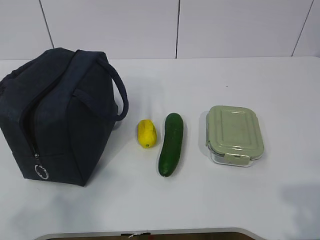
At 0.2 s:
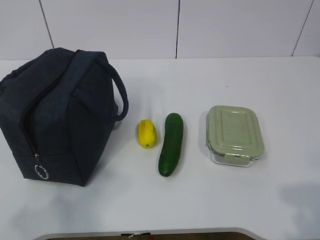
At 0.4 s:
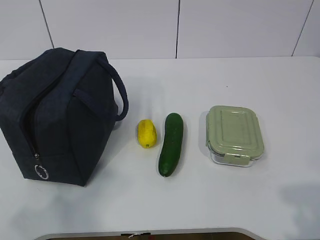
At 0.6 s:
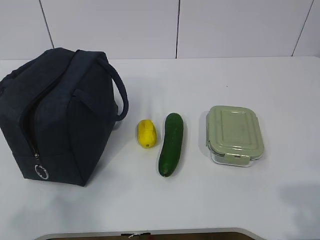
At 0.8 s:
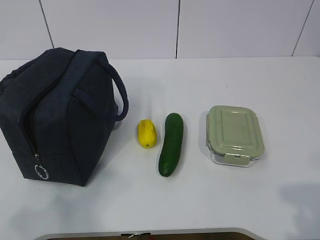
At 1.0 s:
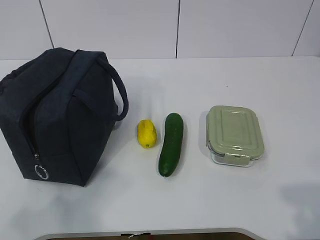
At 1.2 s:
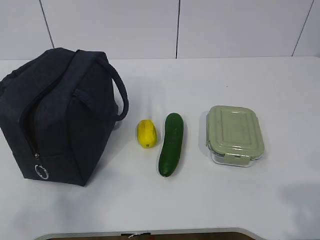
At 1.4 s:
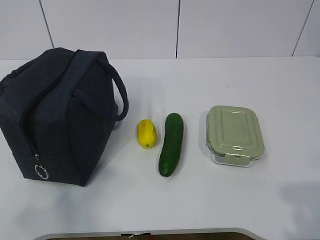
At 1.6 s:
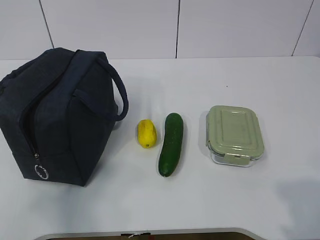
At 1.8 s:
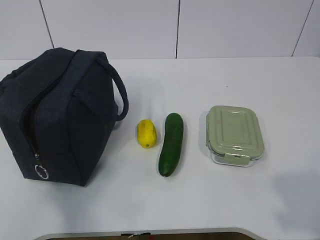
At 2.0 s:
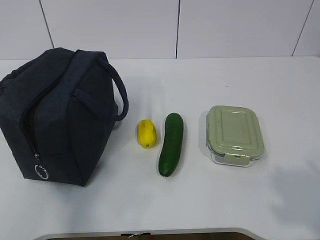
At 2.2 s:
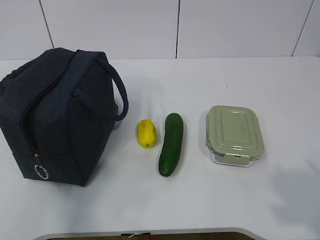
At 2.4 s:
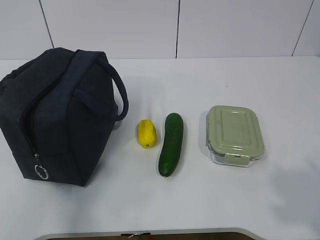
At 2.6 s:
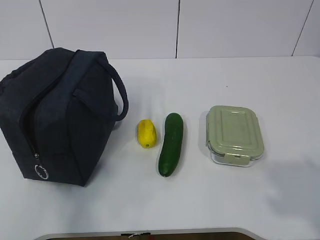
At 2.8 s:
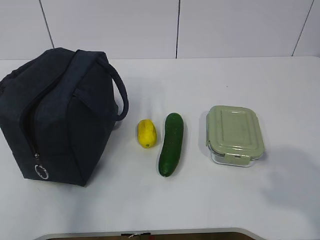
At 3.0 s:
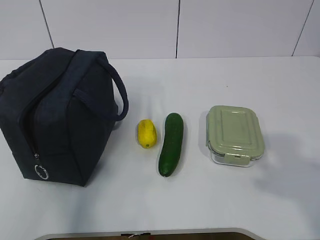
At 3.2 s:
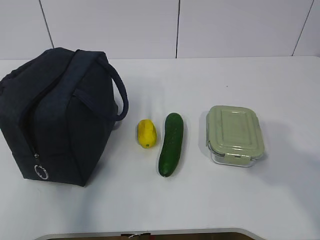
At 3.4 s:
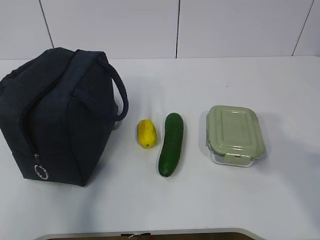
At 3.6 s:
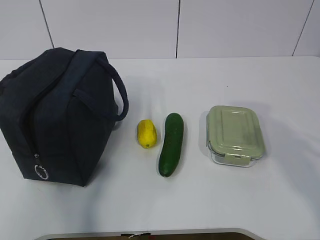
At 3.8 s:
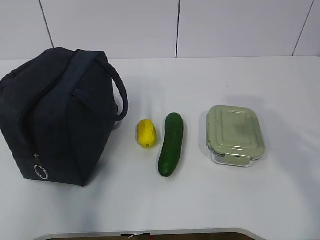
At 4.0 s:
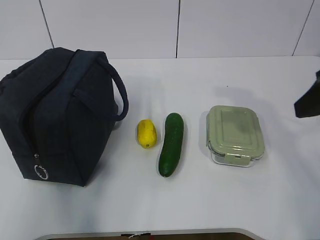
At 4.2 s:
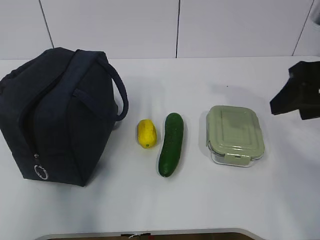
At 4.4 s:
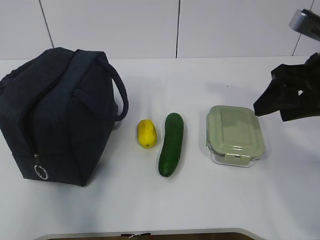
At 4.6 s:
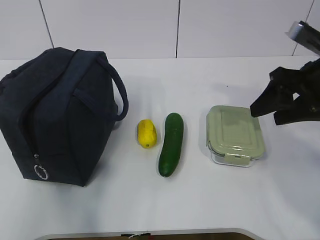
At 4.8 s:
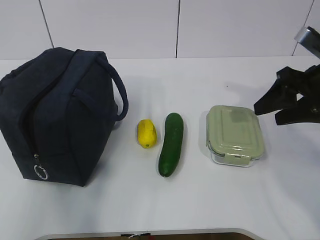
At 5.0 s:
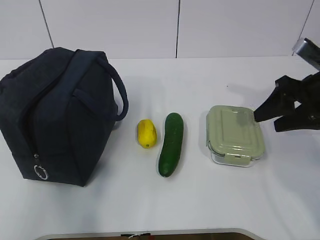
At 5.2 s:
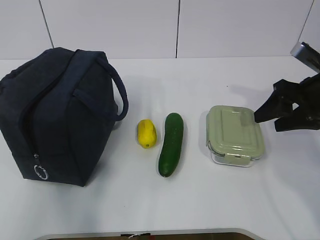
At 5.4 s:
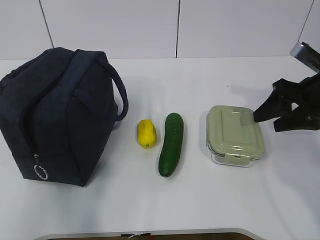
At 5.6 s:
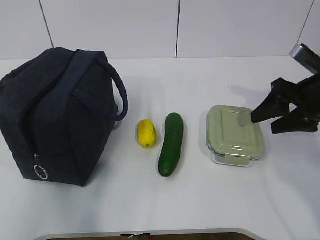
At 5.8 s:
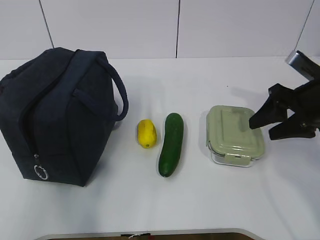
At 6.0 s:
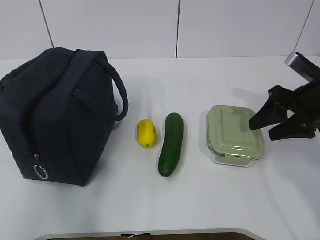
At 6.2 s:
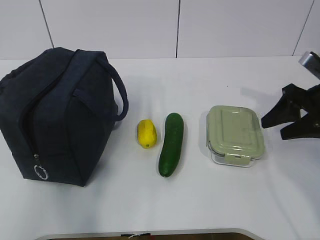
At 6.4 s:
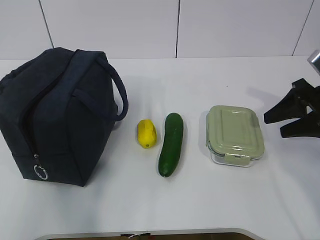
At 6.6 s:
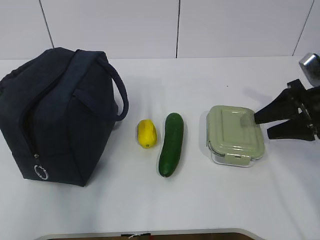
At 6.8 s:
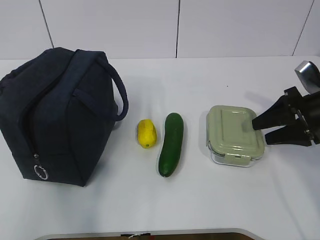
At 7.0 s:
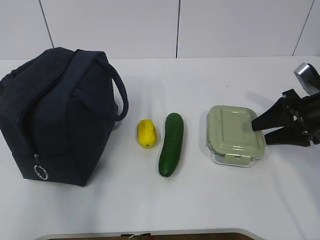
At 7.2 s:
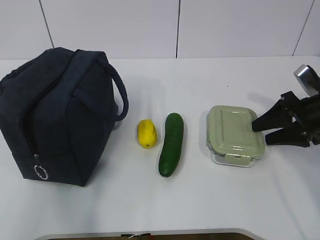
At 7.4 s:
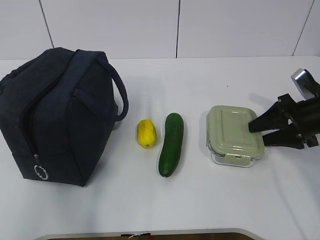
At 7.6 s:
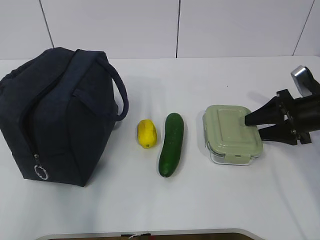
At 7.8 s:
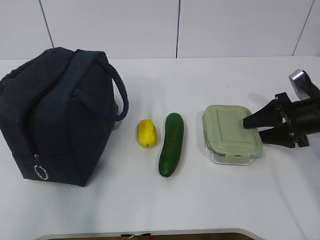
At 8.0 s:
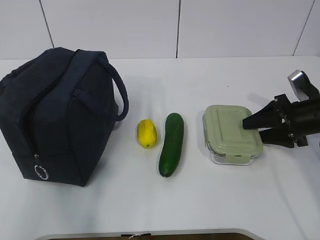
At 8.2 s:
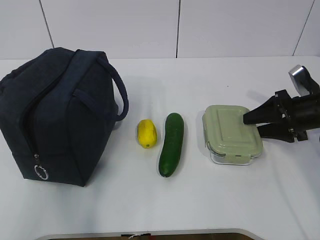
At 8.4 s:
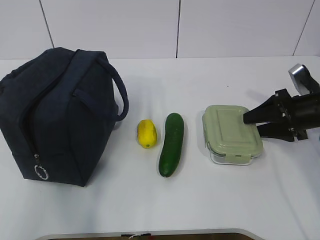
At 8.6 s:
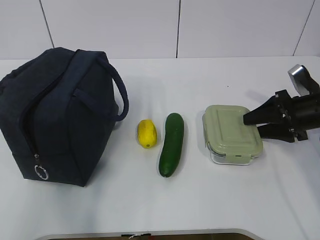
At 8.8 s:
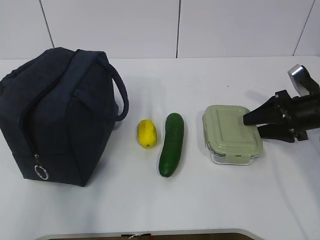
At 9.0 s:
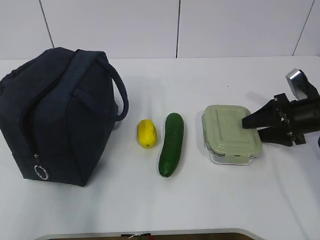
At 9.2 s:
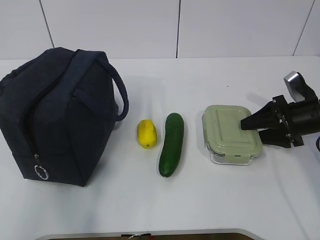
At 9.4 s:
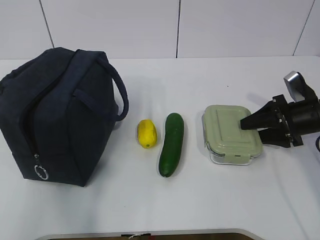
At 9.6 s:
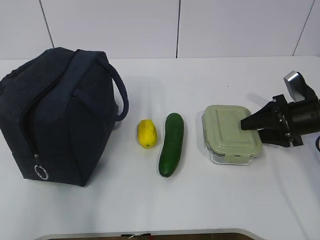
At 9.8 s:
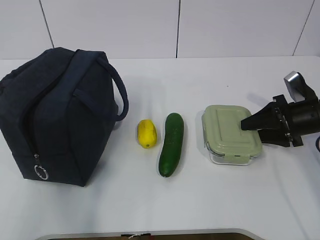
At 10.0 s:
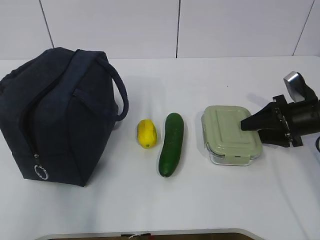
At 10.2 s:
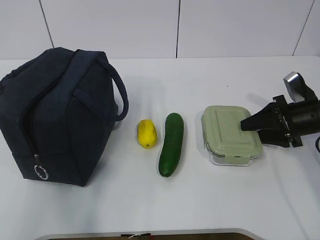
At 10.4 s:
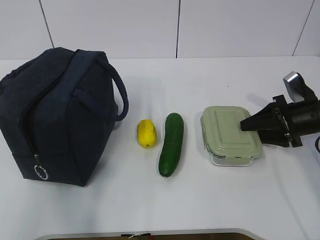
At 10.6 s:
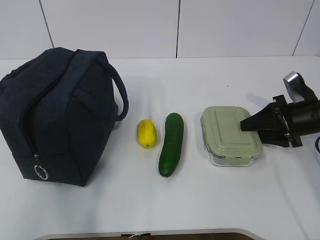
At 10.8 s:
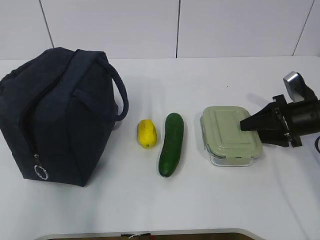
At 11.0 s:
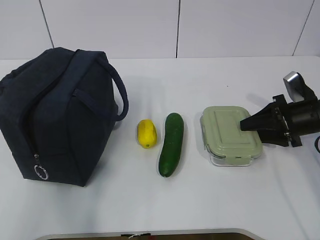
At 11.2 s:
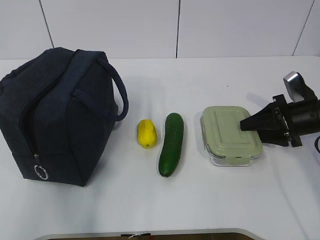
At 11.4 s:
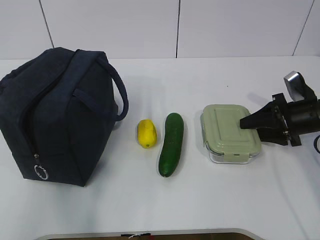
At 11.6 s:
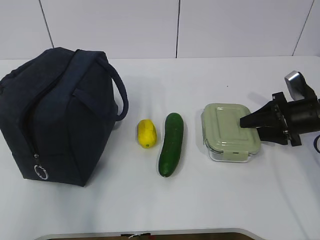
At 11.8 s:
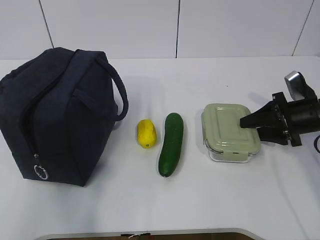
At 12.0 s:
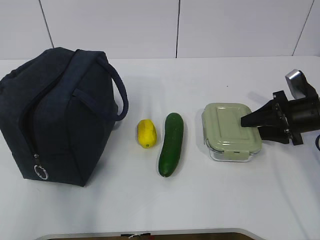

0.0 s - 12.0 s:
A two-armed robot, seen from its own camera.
Step, 0.0 s - 9.8 s: Grab the lunch box with your right hand.
1.6 s - 3.0 s: The right gripper is displaced upward by some 5 cm.
3.0 s - 4.4 s: The right gripper heads forward, covering some 25 cm.
4.4 s - 6.0 s: The right gripper moves downward and forward, approximately 10 cm.
6.0 s - 7.6 s: The right gripper goes roughly 5 cm downward.
7.6 s - 9.0 s: Neither gripper changes place.
9.0 s - 12.0 s: Both grippers stay about where they are.

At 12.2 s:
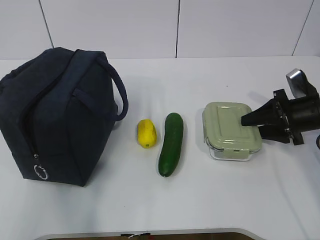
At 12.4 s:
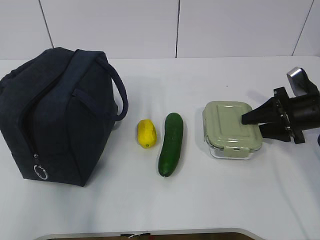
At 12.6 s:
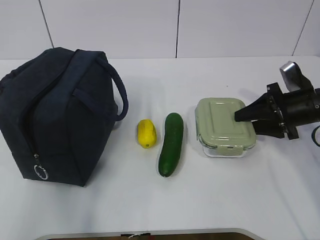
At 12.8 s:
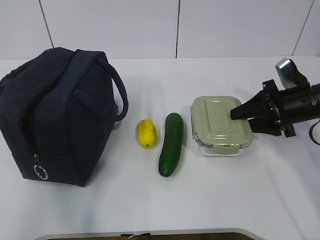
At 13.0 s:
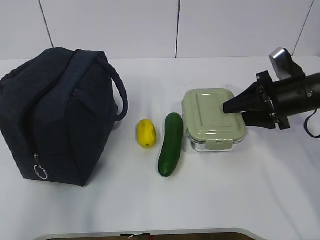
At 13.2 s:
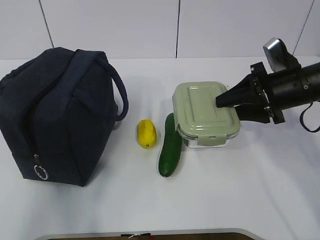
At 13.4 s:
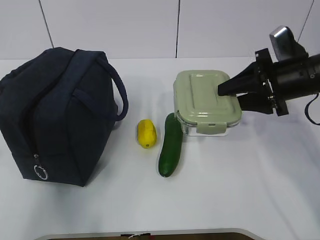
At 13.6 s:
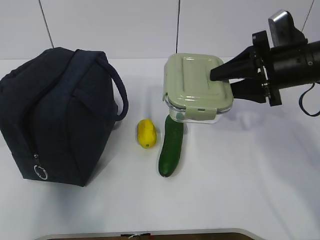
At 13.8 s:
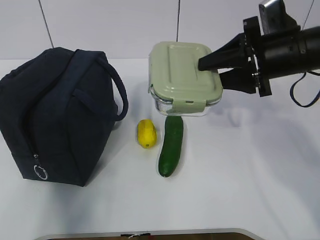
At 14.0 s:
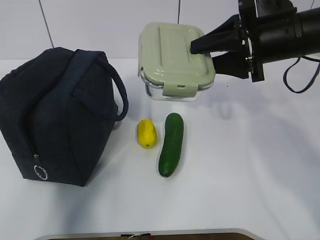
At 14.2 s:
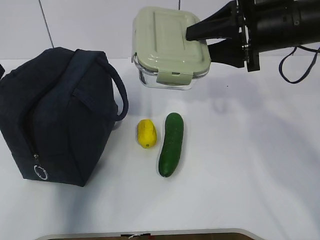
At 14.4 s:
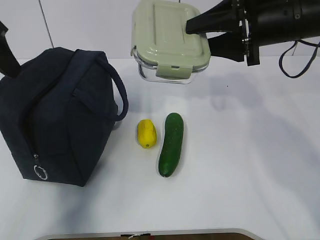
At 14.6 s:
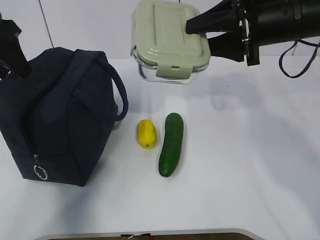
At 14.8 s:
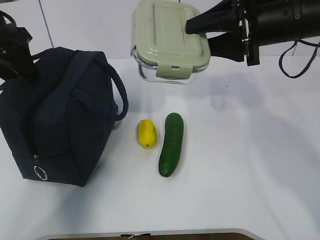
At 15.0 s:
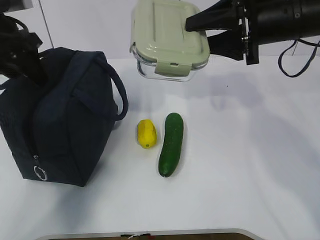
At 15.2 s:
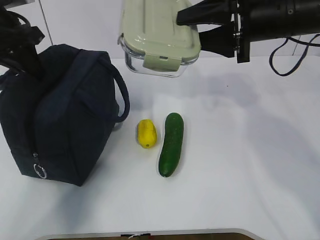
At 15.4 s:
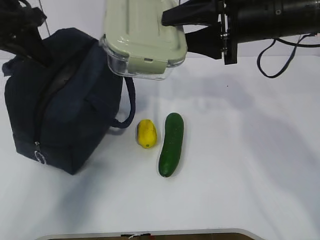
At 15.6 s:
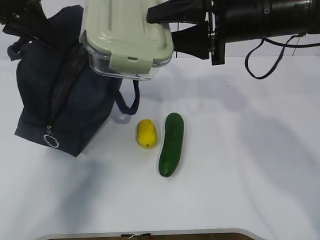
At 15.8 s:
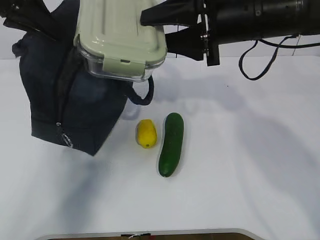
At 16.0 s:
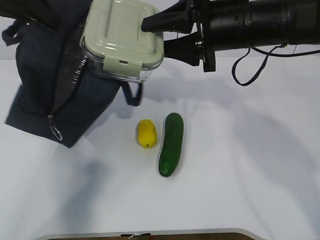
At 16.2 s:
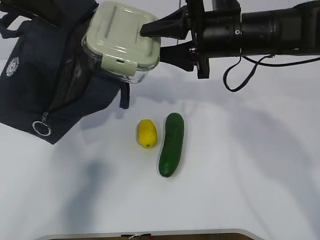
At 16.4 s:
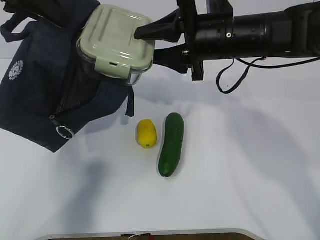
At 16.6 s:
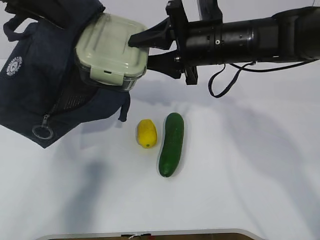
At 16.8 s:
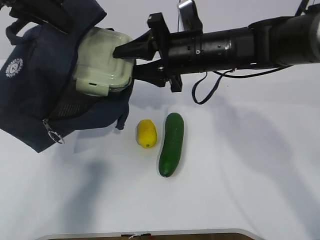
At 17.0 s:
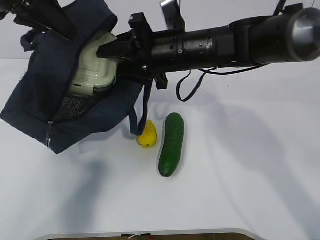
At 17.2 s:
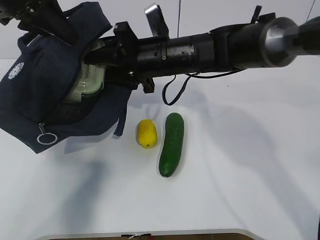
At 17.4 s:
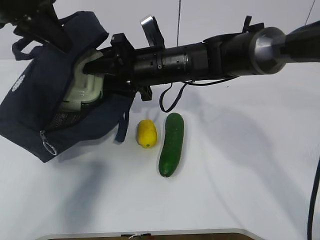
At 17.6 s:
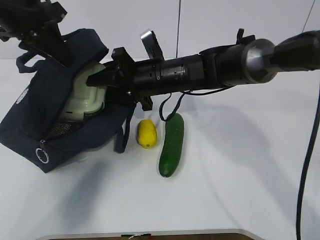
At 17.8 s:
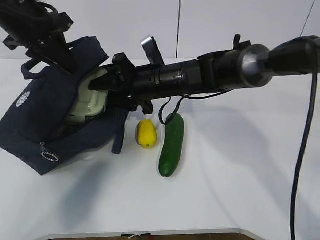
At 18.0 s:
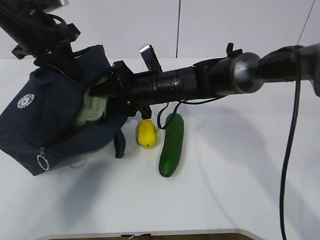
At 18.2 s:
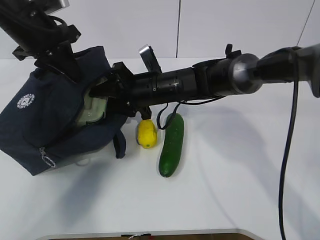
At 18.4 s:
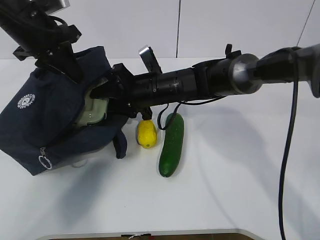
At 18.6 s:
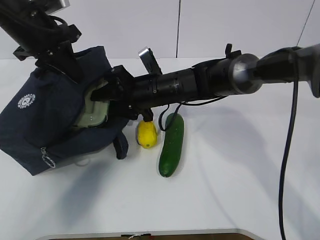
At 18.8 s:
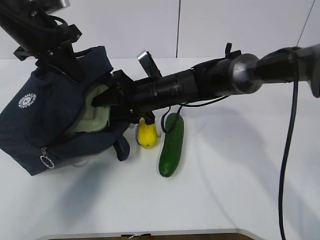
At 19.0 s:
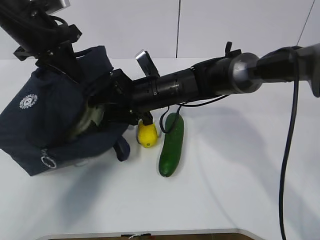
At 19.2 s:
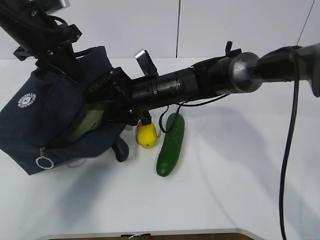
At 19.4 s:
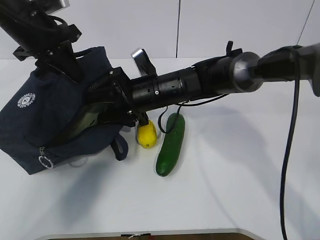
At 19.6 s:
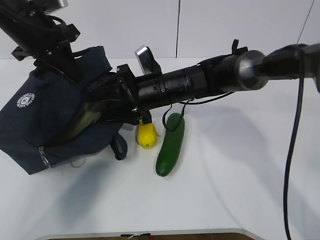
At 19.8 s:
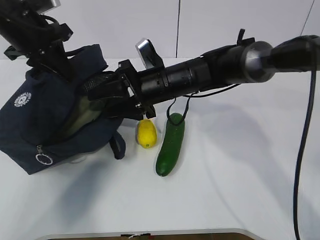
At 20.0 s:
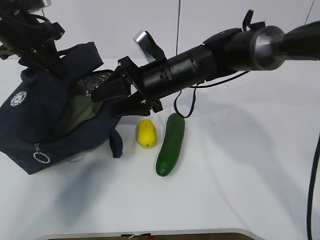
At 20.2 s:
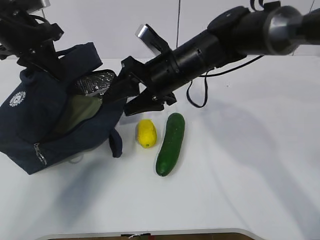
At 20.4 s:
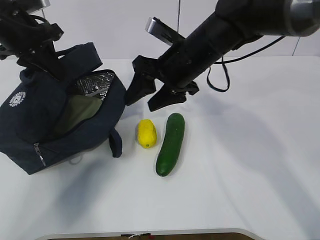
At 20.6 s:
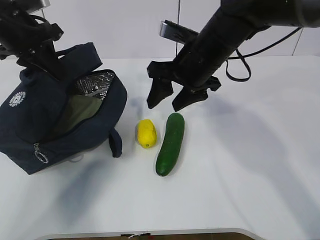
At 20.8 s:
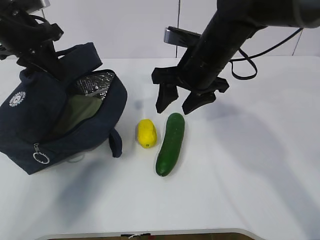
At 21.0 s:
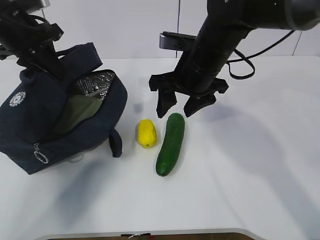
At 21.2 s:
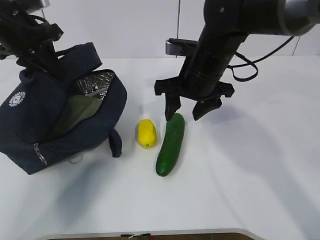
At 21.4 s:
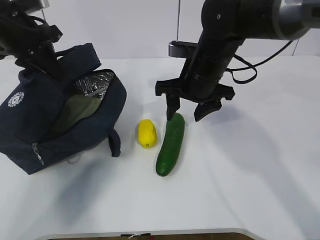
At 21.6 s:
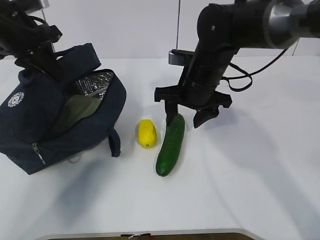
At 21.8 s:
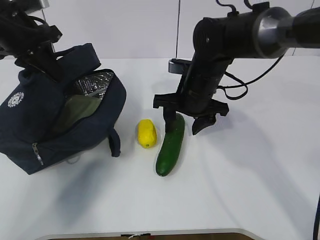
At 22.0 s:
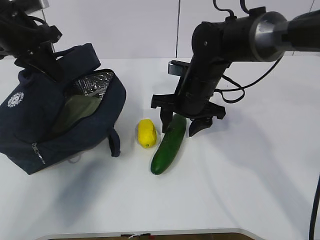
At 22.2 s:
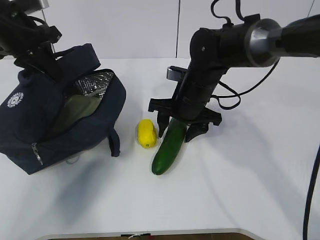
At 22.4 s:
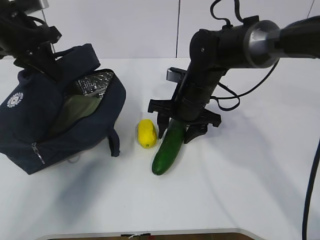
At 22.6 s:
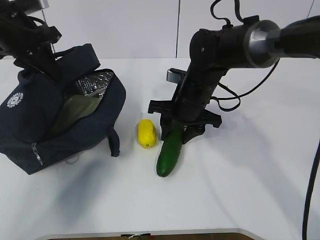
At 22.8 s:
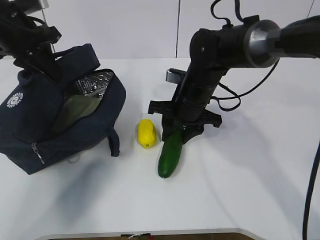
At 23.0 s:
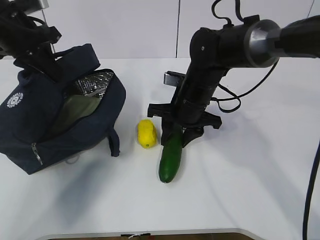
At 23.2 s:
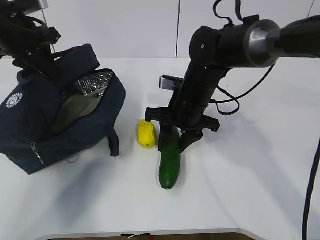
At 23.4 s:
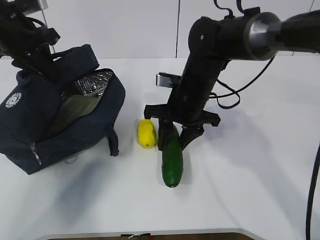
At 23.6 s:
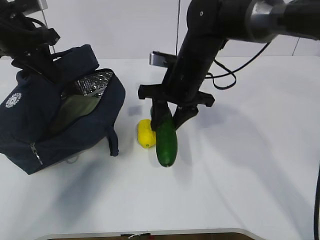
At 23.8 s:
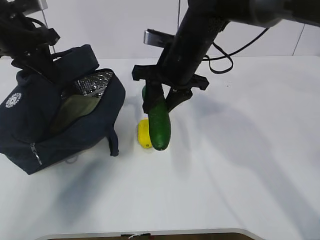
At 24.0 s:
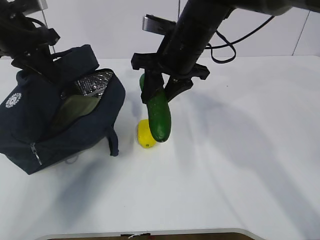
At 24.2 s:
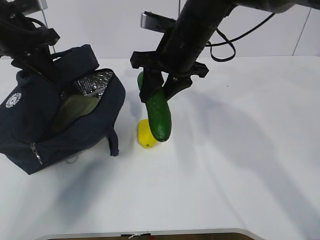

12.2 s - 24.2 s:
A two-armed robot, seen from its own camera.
Step, 13.2 s - 16.0 s: Place it into the bag with your right hand.
Step, 16.4 s - 19.0 s: Grab the cucumber with your right hand.
Step, 19.2 s - 22.8 s: Place it into the bag with your right hand.
12.2 s - 13.8 s: The left gripper moves forward, about 15 cm; the right gripper shifts approximately 15 cm upward and to the left.
13.8 s - 15.2 s: The left gripper moves forward, approximately 15 cm, and closes up, while the right gripper moves upward, some 5 cm.
15.2 s - 16.6 s: The right gripper shifts about 5 cm to the left; the left gripper moves upward, about 10 cm.
16.6 s - 18.2 s: The right gripper goes some 15 cm downward and to the left; the left gripper goes roughly 10 cm downward and forward.
18.2 s - 19.8 s: The grippers make only small movements.
19.8 s - 21.2 s: The right gripper shifts about 5 cm to the right.
21.2 s - 22.6 s: The right gripper heads downward, covering some 5 cm.
22.6 s - 24.2 s: The right gripper moves upward, about 10 cm.
